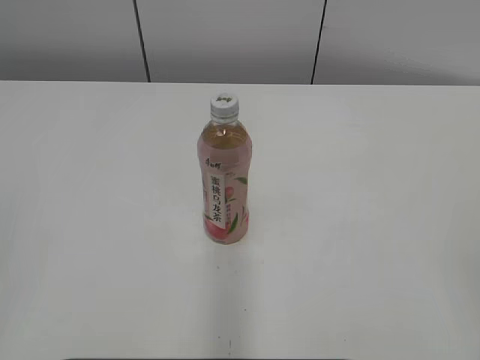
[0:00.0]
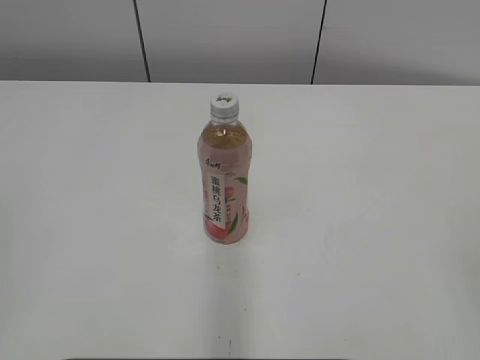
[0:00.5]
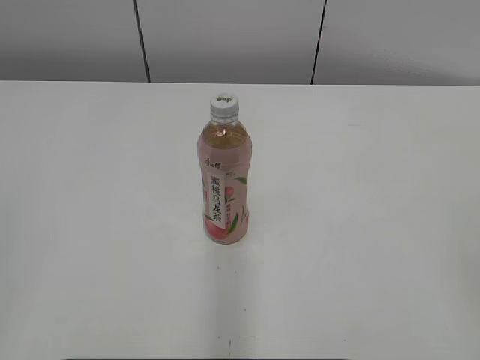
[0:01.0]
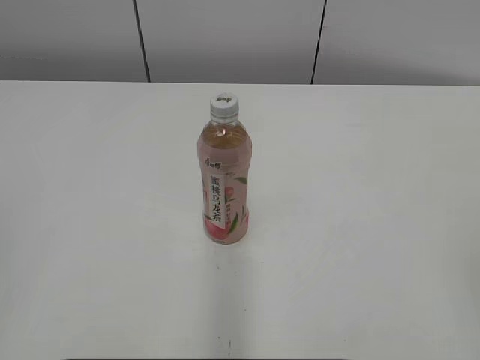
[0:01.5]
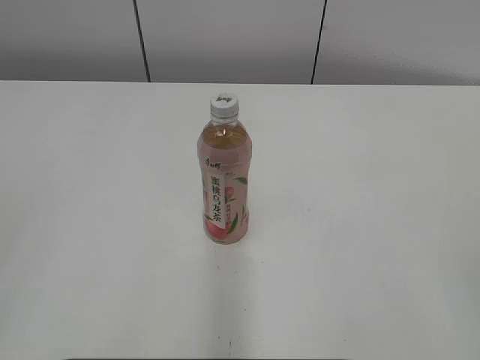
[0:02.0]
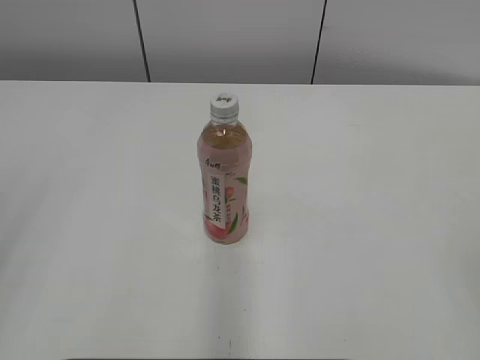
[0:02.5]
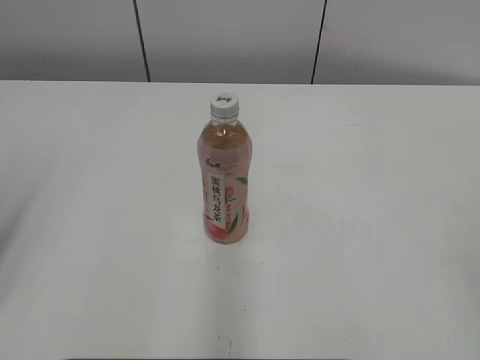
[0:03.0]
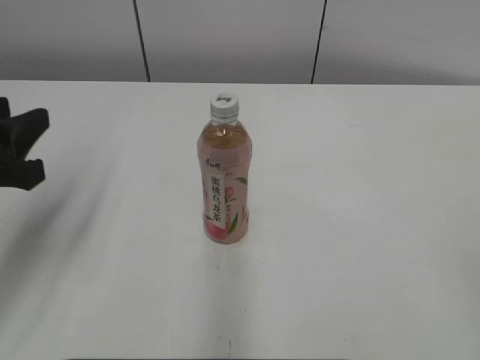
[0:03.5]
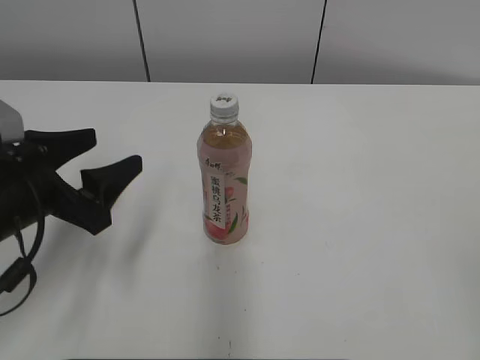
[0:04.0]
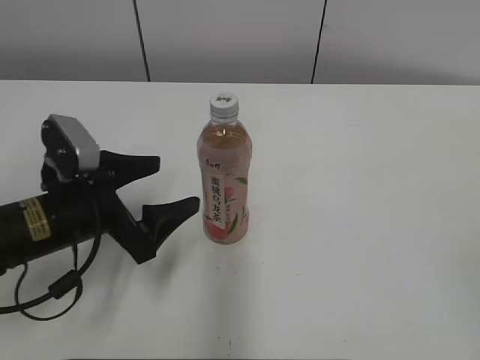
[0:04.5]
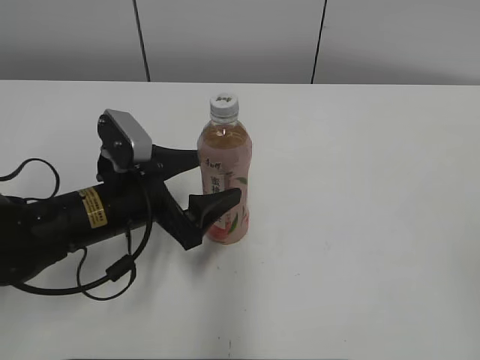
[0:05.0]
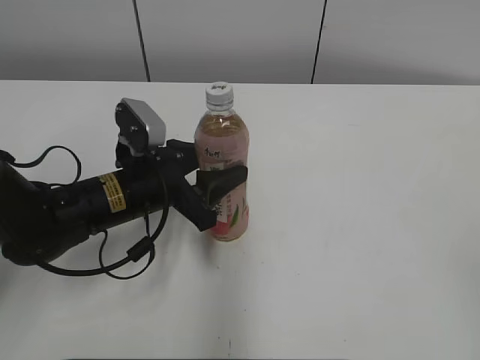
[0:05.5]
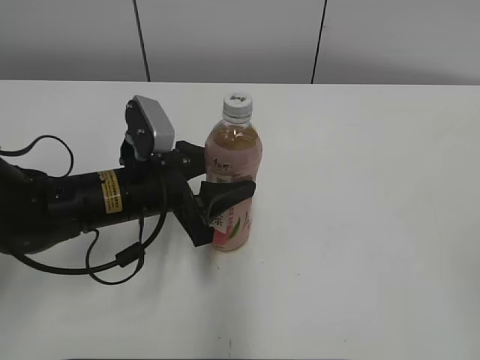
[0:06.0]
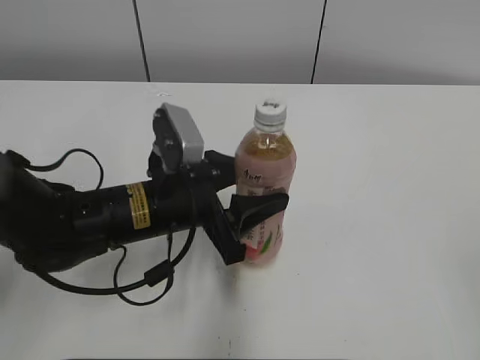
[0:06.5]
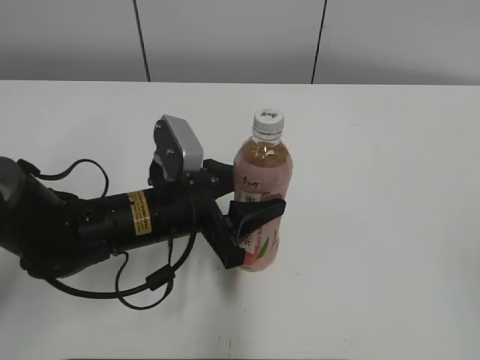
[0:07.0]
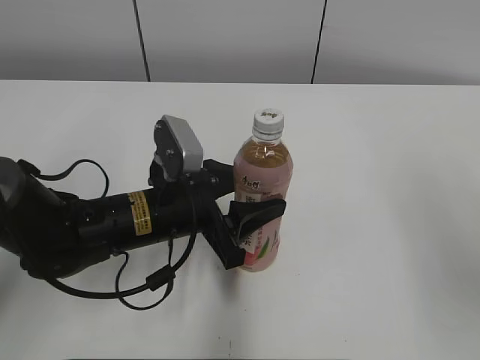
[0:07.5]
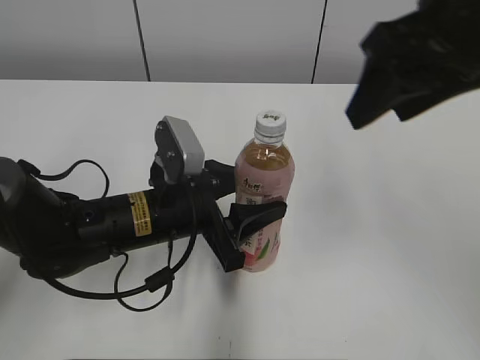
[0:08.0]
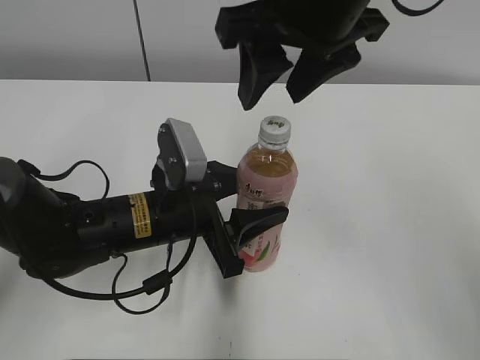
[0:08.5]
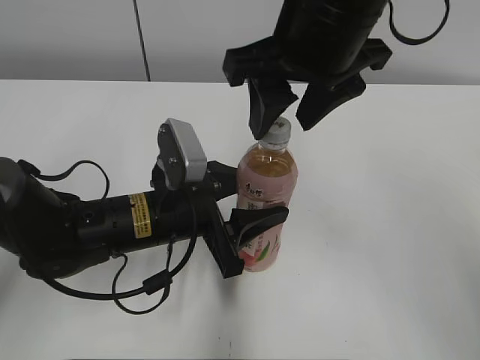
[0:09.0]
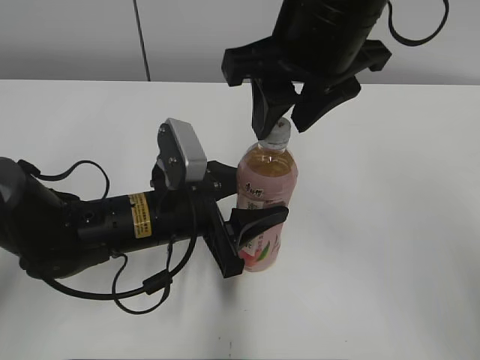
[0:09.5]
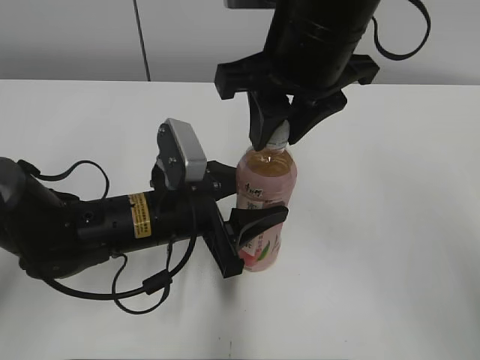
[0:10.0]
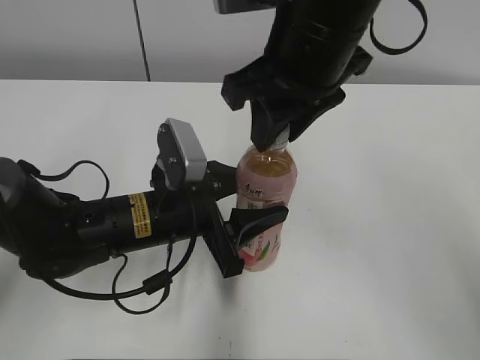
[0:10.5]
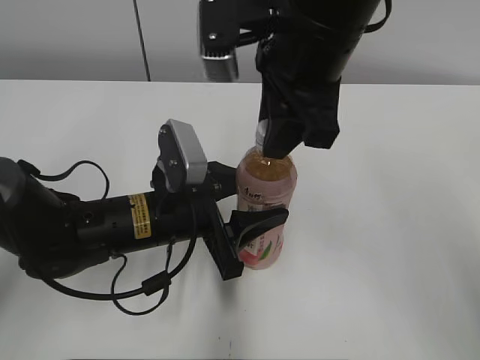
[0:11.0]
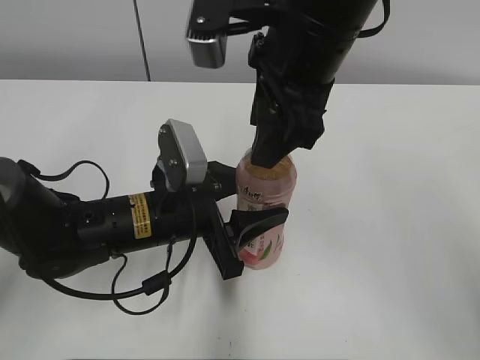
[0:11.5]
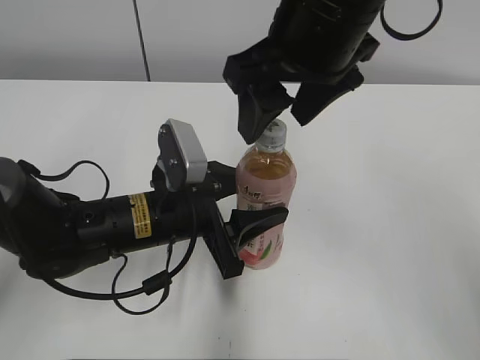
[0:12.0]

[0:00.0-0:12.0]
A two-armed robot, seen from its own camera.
Step, 0:00.0 to 0:05.5: Grab the Peach Oolong Tea with the left hand.
Step, 0:06.0 to 0:09.0: Move the Peach Oolong Tea from left to right.
0:02.0 to 0:04.0: The left gripper goes roughly 30 cm forward and downward, and opens its fingers.
0:04.0 to 0:06.0: The left gripper heads to the right and forward, covering some 10 cm.
0:06.0 to 0:08.0: The right gripper shifts about 30 cm forward and to the left.
0:08.0 to 0:10.0: The right gripper goes some 10 cm to the left, and closes its fingers.
0:10.0 to 0:12.0: The right gripper opens up.

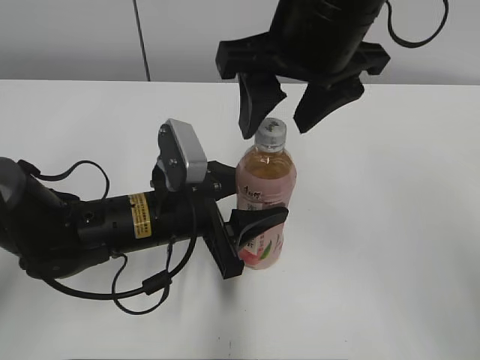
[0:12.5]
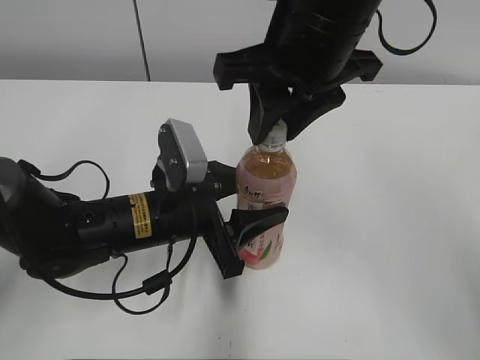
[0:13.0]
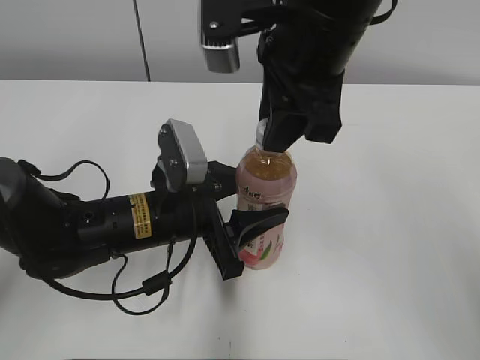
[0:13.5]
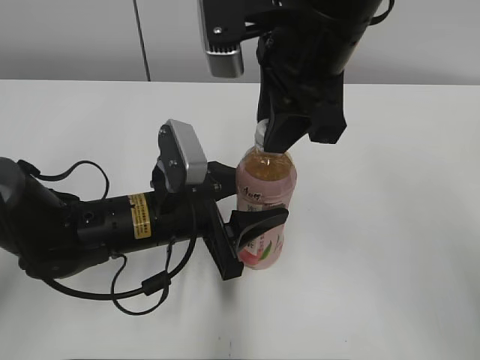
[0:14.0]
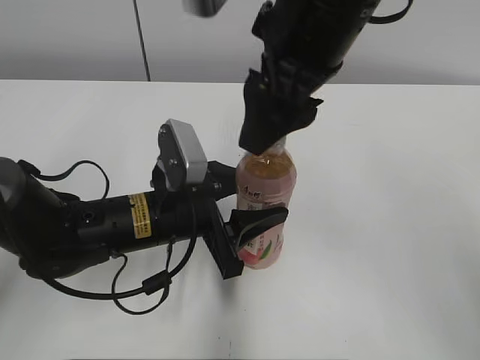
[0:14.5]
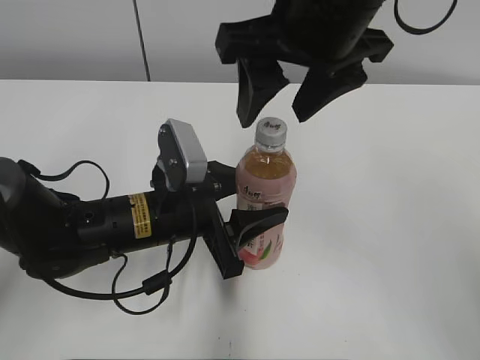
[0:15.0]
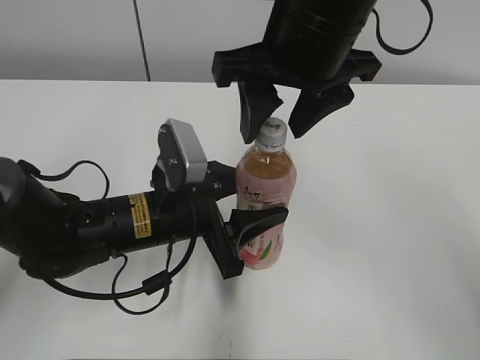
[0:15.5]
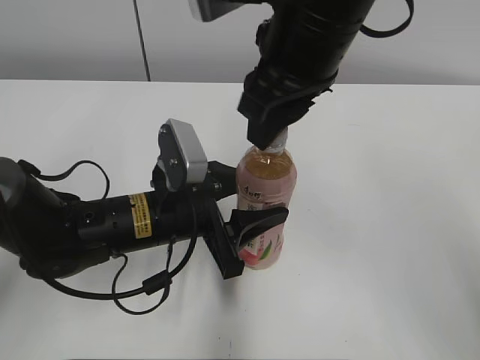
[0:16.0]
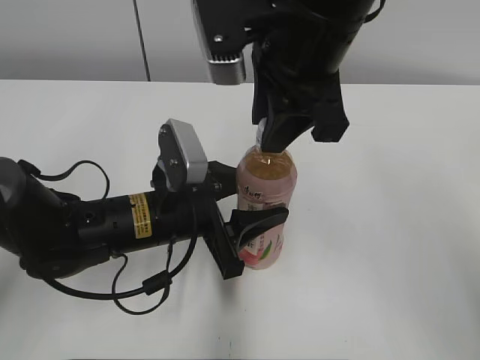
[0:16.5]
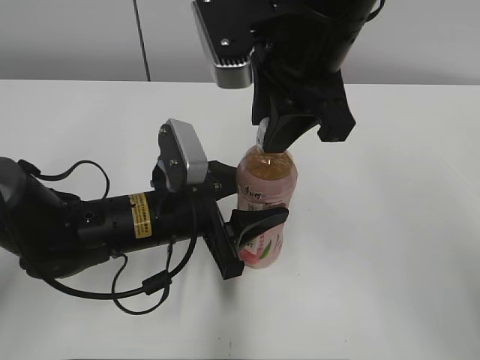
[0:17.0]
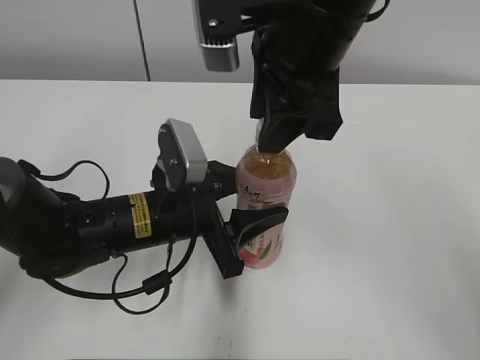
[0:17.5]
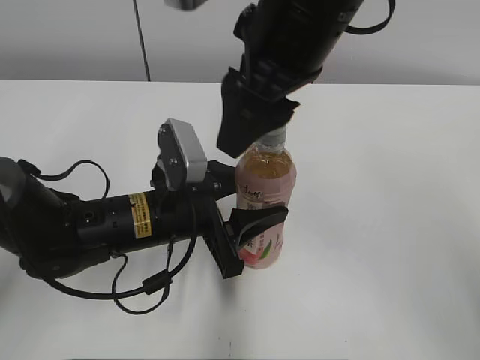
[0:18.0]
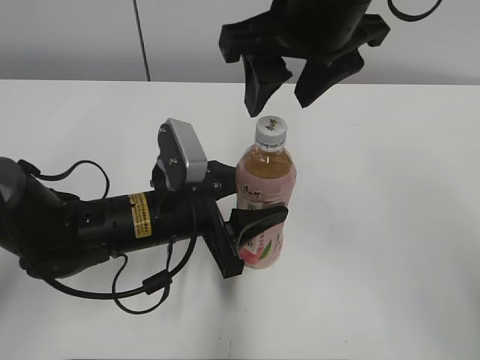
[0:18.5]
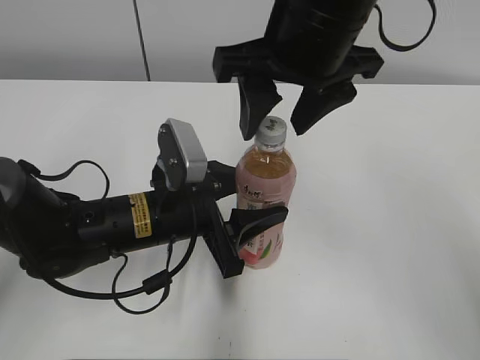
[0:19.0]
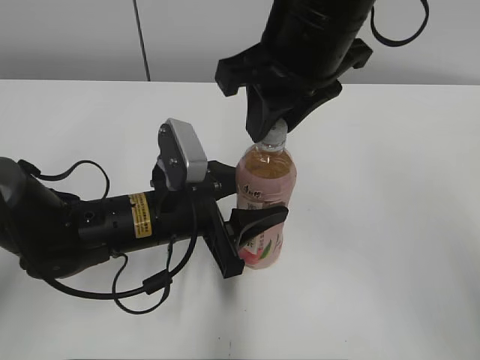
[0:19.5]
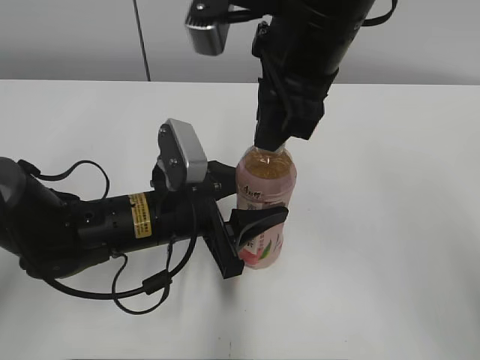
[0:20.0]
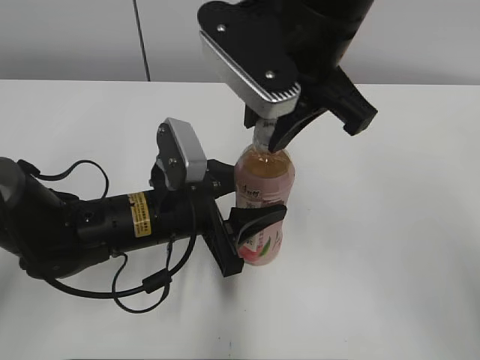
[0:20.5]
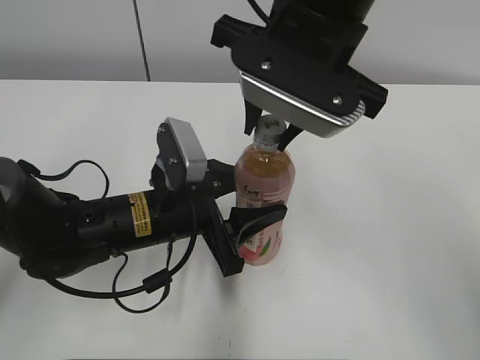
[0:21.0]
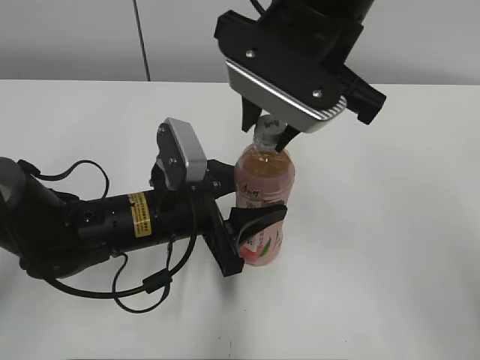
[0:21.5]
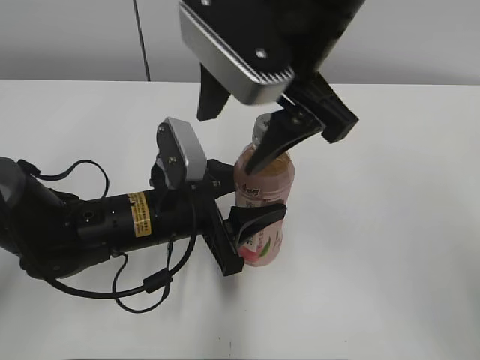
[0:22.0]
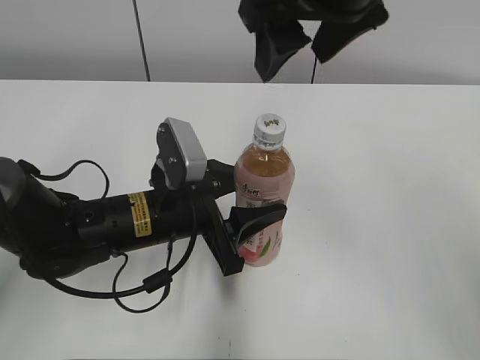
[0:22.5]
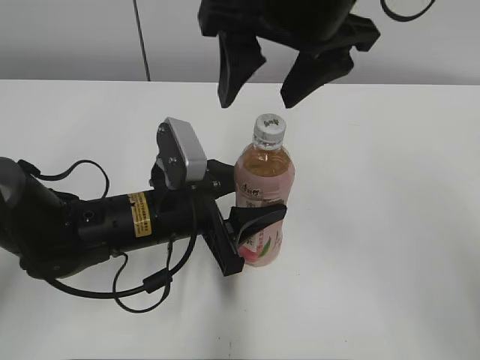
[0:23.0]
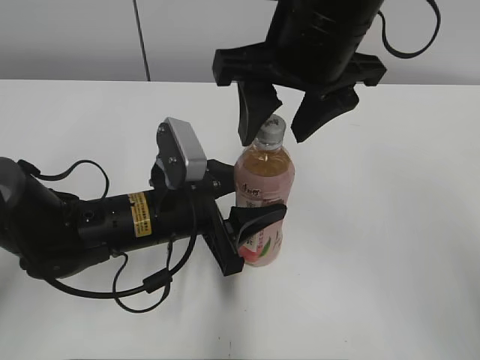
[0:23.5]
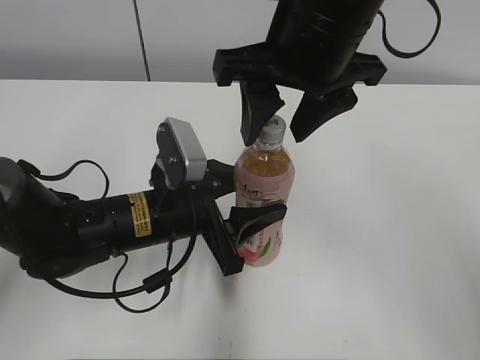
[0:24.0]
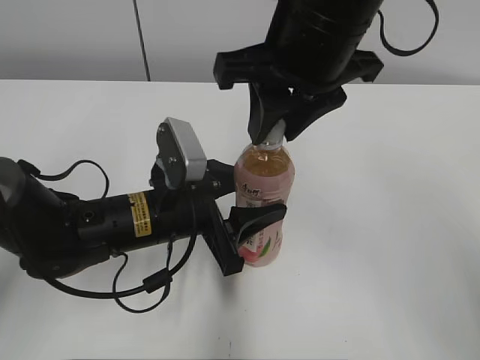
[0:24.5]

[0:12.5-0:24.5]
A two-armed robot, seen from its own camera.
0:12.5 to 0:14.5: The right gripper closes and opens again.
0:14.5 to 0:16.5: The right gripper closes its fingers.
0:16.5 to 0:18.5: The right gripper opens its fingers.
0:18.5 to 0:20.5: The right gripper closes its fingers.
0:20.5 to 0:22.5: The right gripper opens its fingers.
0:22.5 to 0:24.5: The right gripper closes up.

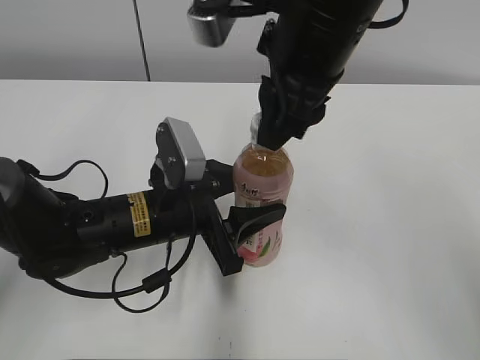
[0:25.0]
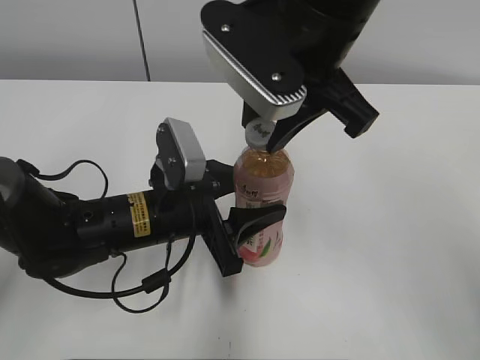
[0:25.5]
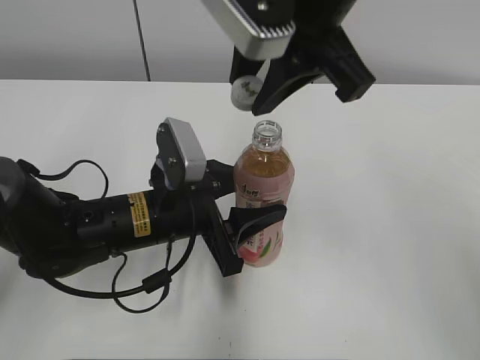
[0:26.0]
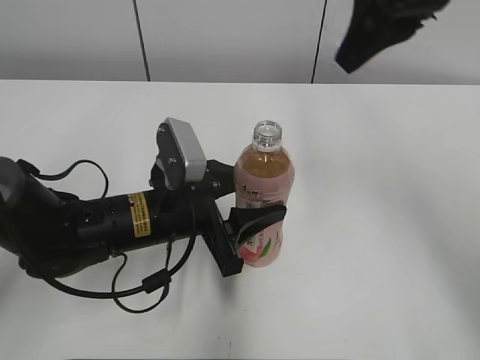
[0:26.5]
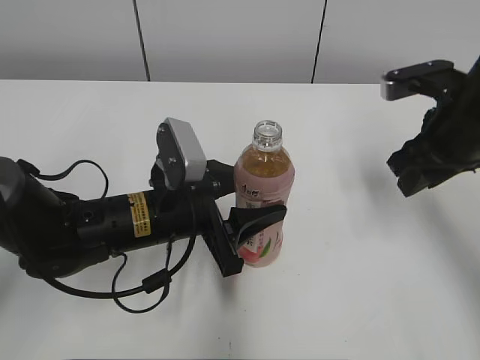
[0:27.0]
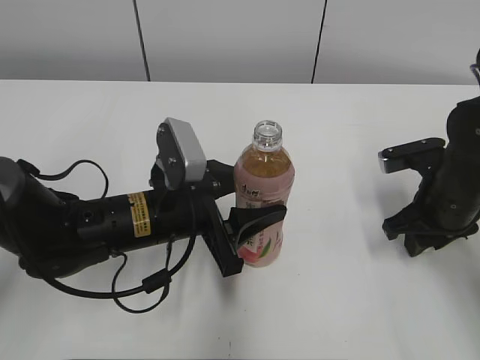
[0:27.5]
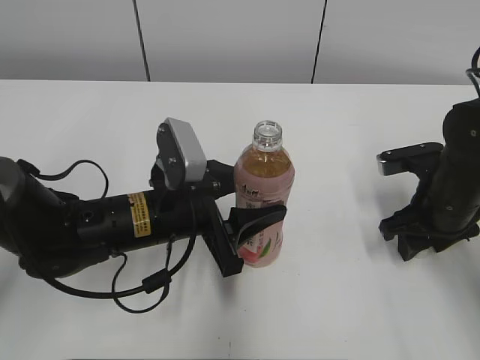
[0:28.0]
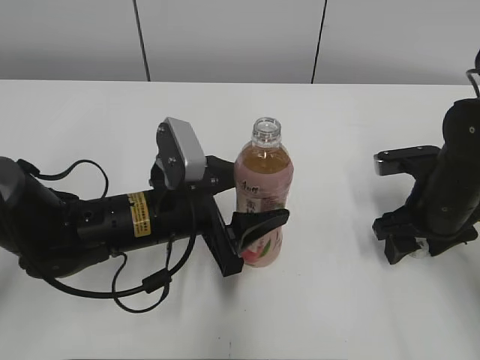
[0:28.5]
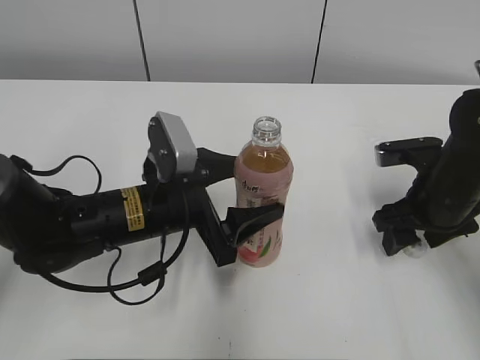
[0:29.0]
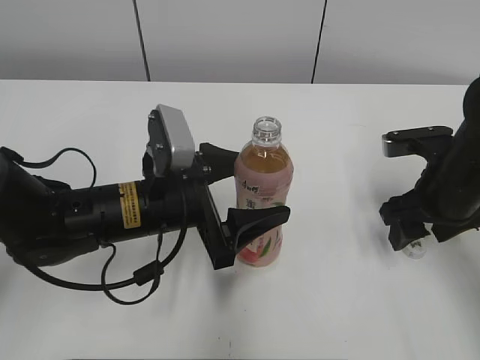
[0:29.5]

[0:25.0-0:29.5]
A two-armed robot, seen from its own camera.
Step, 0:26.0 to 0:28.0: Place the bottle cap on the right.
0:25.0 to 0:27.0: The right gripper heads to the right and downward, covering roughly 20 cm.
0:27.0 to 0:29.5: The left gripper opens its fingers; the right gripper travels downward by some 5 cm, and opens up.
